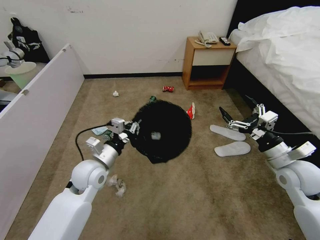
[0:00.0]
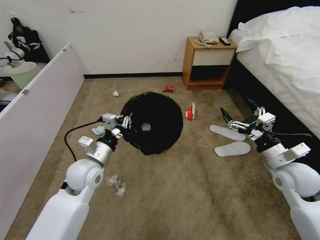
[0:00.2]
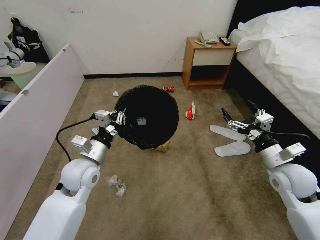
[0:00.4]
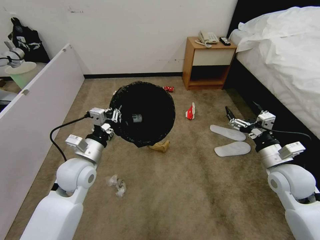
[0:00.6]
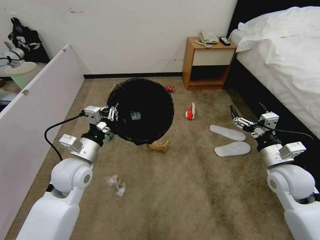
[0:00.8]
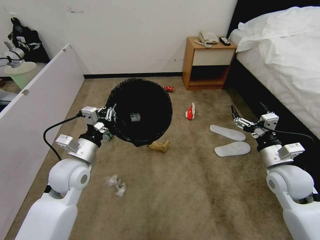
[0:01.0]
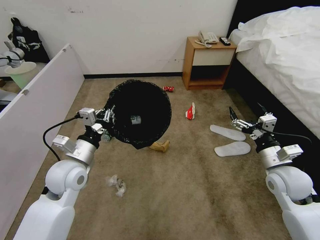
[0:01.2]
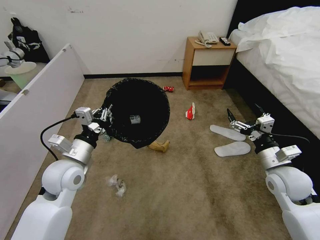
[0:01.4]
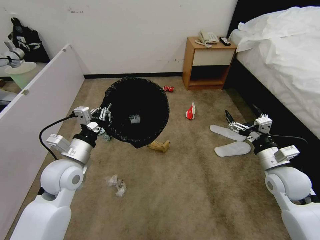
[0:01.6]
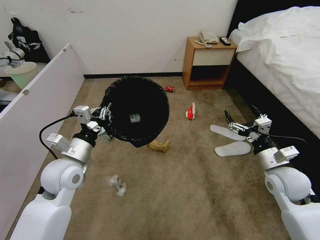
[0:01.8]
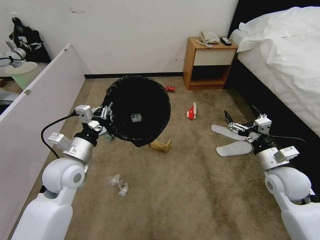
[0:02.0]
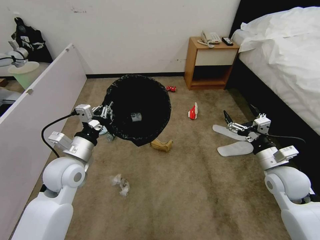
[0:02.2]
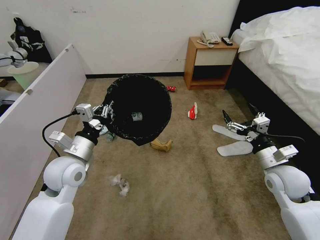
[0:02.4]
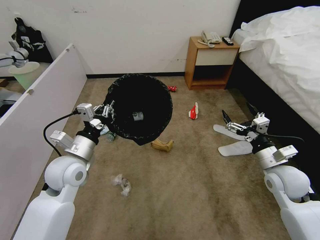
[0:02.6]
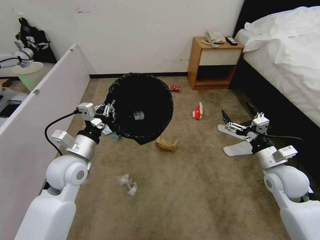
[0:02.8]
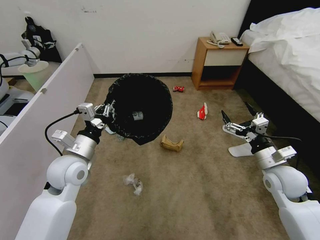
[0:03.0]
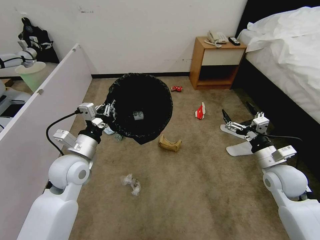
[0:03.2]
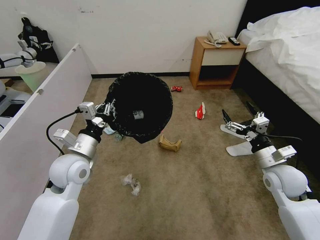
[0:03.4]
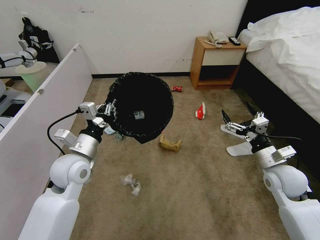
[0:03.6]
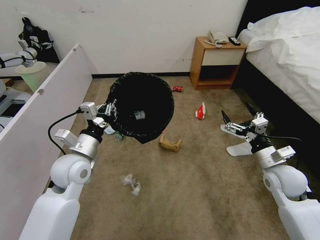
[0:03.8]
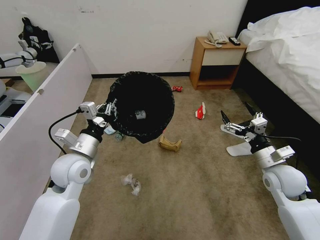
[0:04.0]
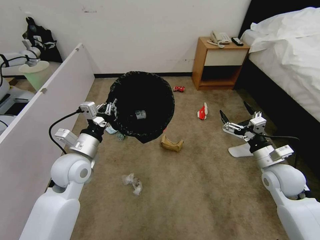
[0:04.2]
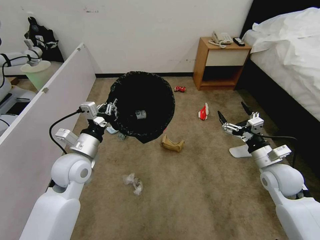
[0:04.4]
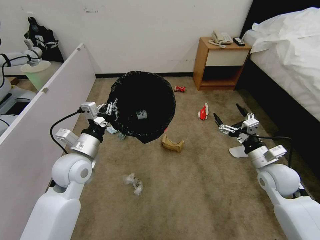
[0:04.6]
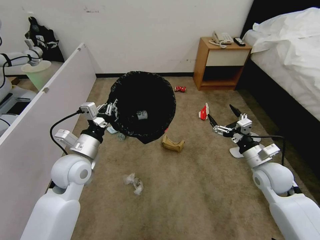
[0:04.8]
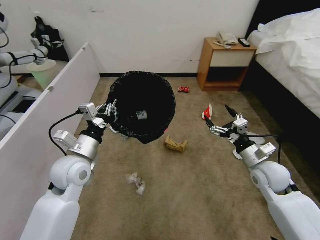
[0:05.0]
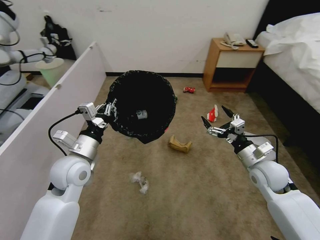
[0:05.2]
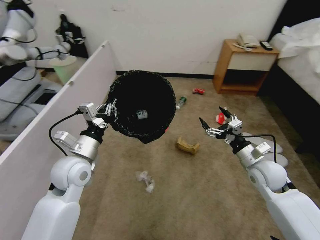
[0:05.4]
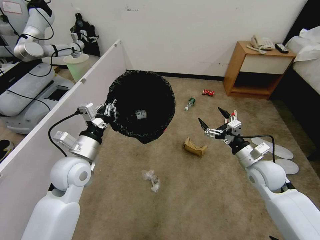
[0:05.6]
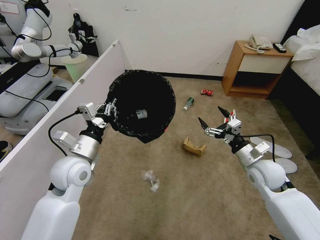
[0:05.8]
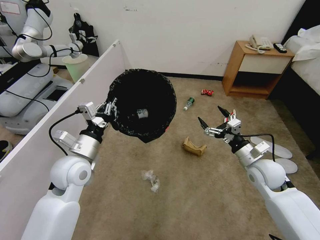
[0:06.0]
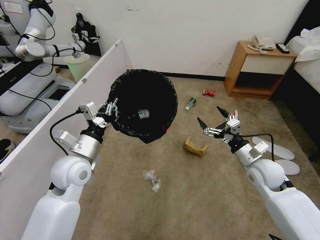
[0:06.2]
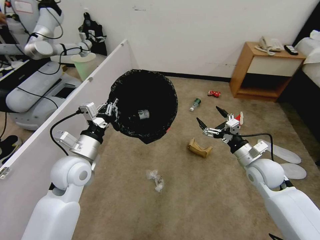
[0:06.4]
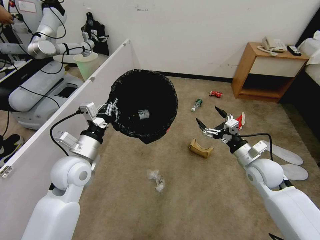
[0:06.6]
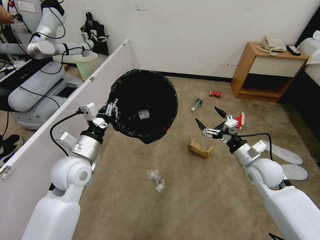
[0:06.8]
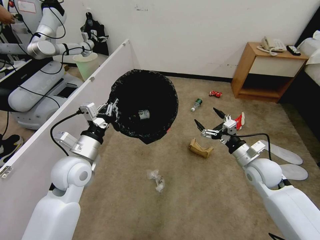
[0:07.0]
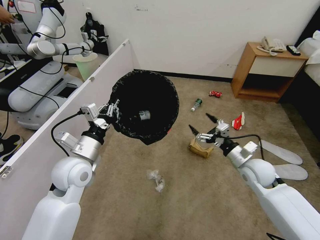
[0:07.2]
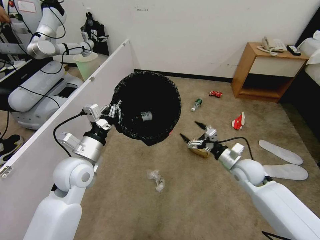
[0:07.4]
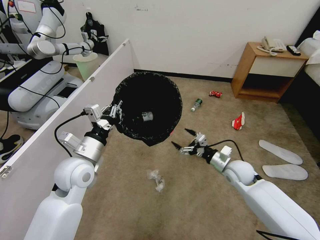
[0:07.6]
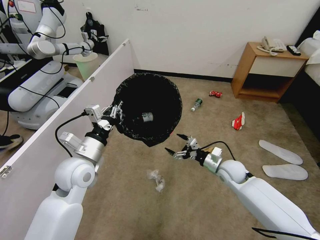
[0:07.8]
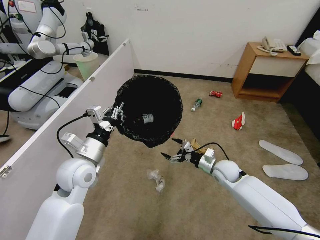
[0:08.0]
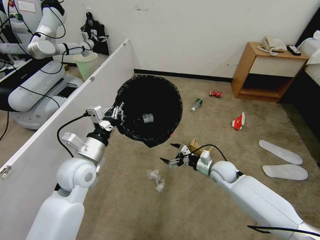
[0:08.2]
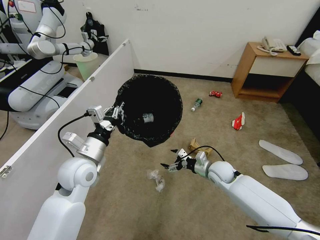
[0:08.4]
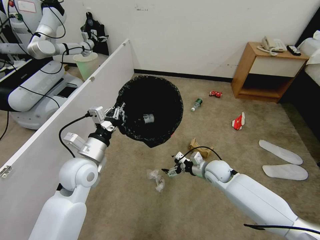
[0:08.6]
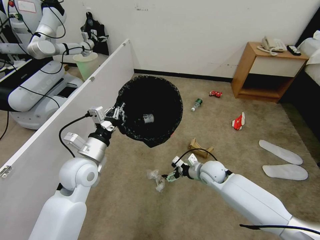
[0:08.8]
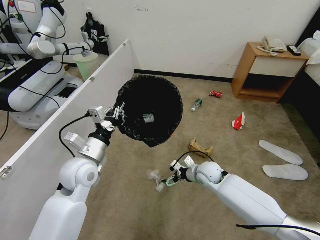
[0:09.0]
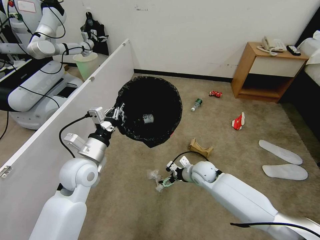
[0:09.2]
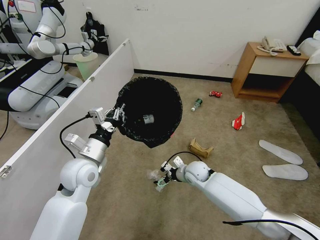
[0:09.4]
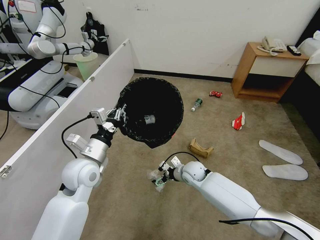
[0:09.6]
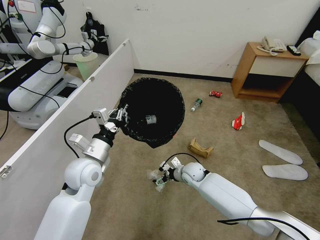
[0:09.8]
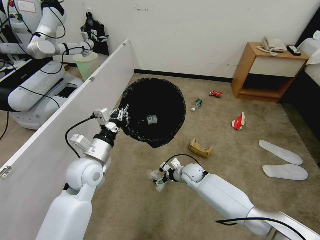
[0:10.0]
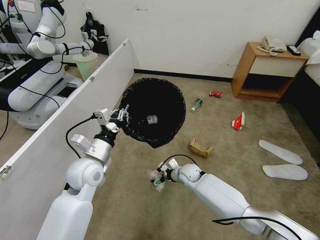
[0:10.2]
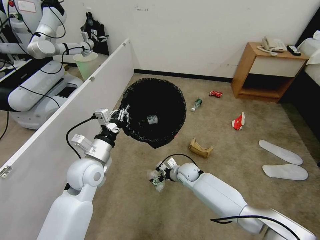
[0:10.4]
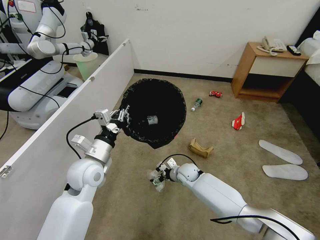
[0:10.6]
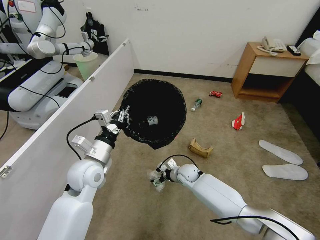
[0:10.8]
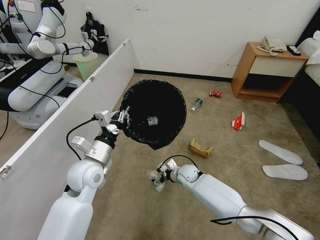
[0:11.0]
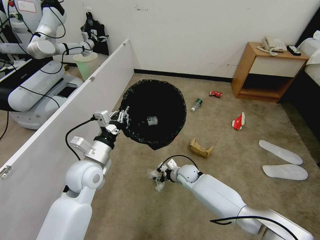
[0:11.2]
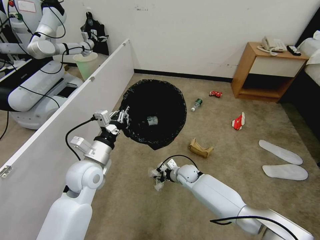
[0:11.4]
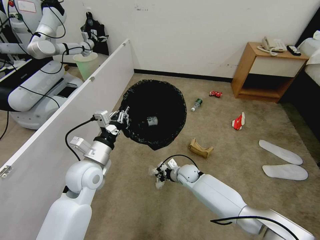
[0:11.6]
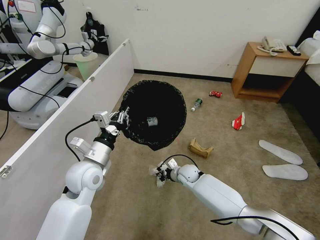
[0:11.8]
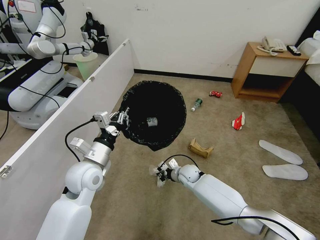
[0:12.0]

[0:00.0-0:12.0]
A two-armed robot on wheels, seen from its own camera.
Task of the whole recording: Pick up the trash bin, then pick up the garbage from the floor and place it into the trash bin.
0:00.0 to 0:01.6: The left gripper changes place by about 5 cm.
0:03.0 to 0:04.4: Both grippers stay about where they are.
0:06.0 to 0:07.6: The right gripper travels downward by about 5 cm.
0:07.6 to 0:09.0: The right gripper is displaced to the left by roughly 10 cm.
0:09.0 to 0:10.4: The right gripper travels to the left and downward by about 10 cm.
0:10.4 to 0:12.0: The right gripper closes its fingers.

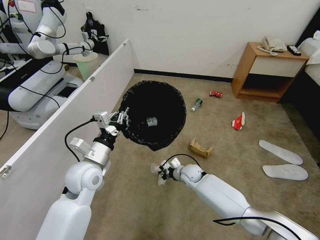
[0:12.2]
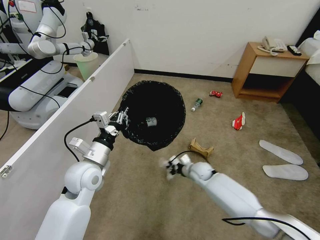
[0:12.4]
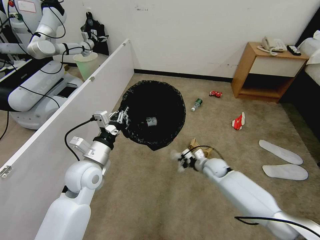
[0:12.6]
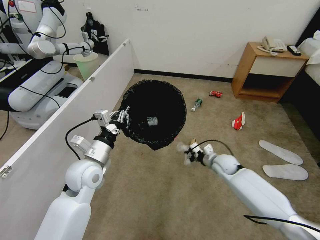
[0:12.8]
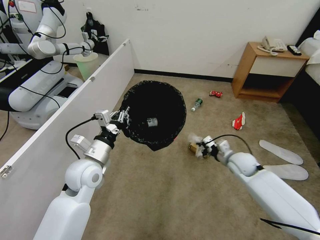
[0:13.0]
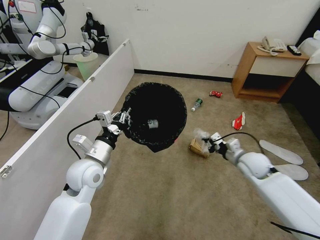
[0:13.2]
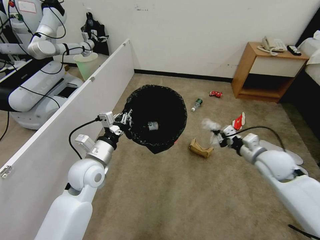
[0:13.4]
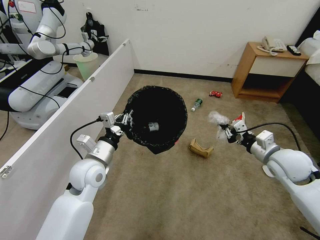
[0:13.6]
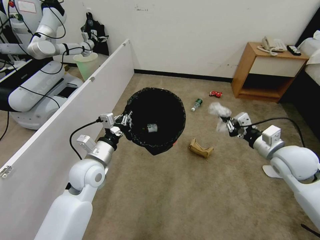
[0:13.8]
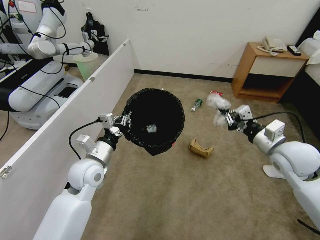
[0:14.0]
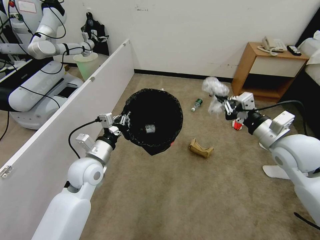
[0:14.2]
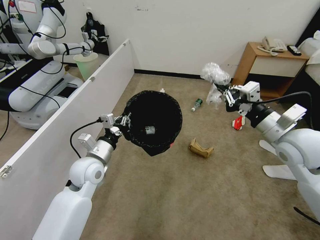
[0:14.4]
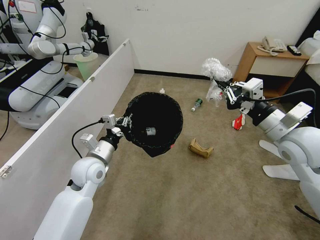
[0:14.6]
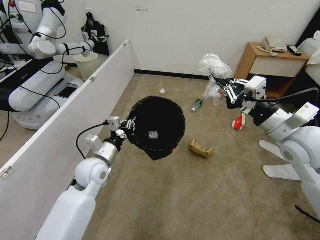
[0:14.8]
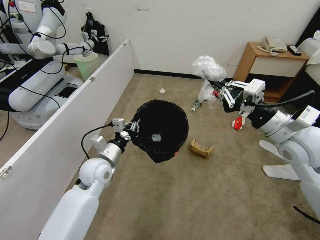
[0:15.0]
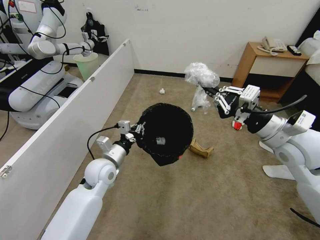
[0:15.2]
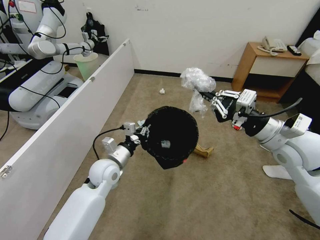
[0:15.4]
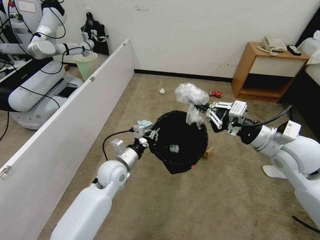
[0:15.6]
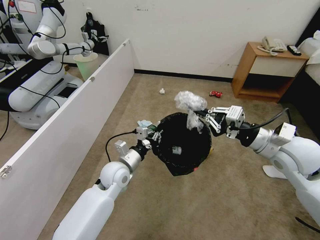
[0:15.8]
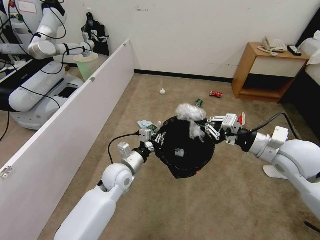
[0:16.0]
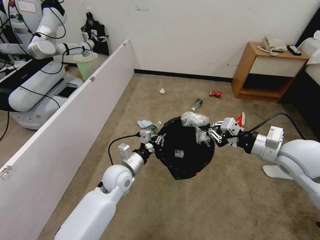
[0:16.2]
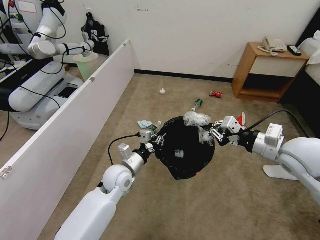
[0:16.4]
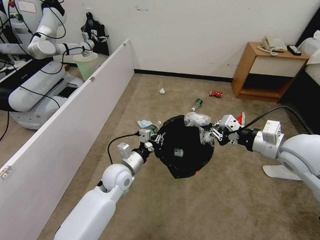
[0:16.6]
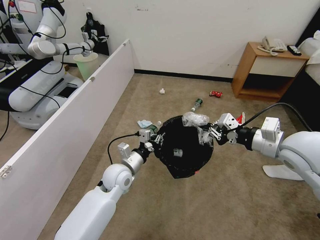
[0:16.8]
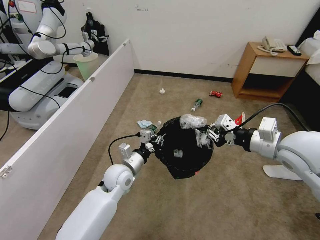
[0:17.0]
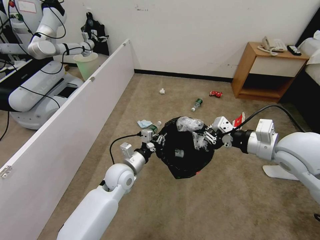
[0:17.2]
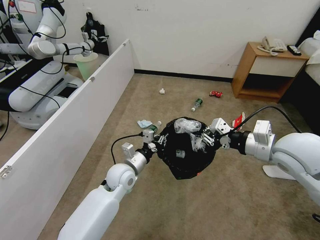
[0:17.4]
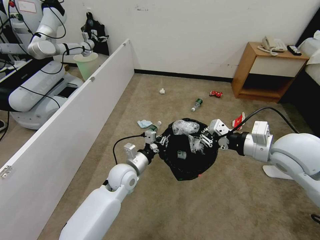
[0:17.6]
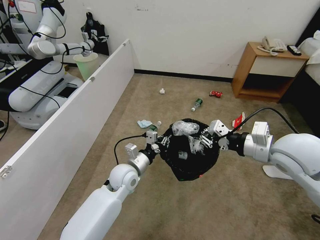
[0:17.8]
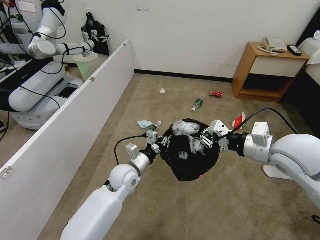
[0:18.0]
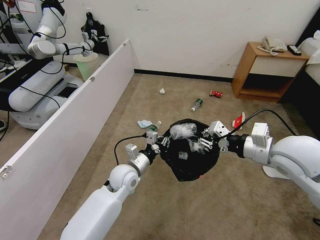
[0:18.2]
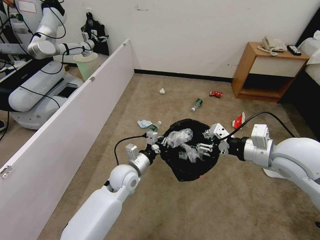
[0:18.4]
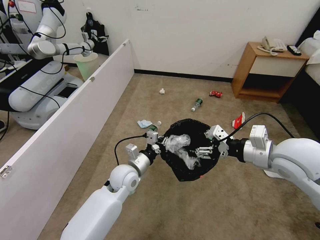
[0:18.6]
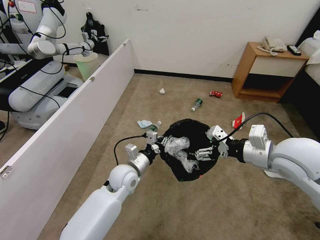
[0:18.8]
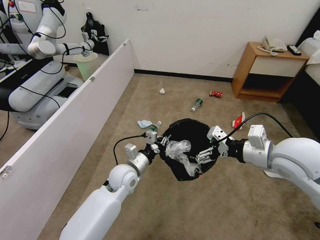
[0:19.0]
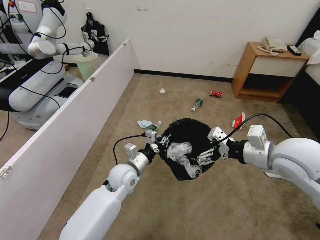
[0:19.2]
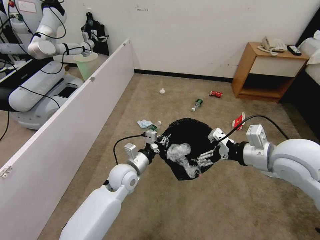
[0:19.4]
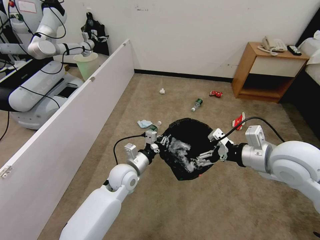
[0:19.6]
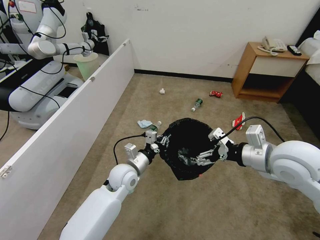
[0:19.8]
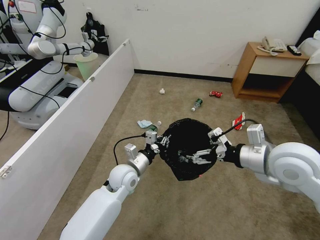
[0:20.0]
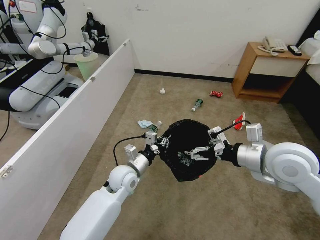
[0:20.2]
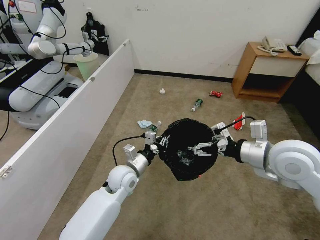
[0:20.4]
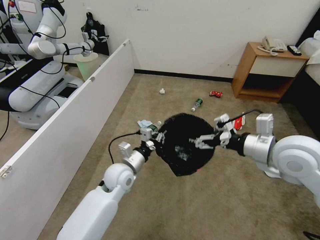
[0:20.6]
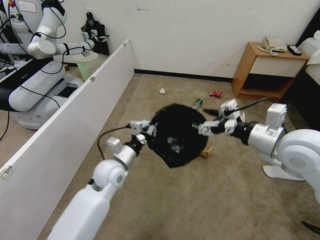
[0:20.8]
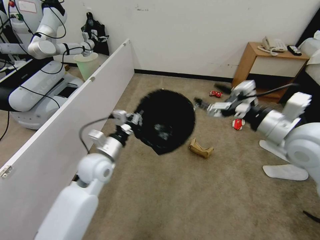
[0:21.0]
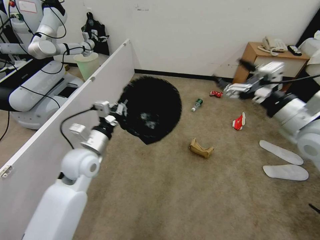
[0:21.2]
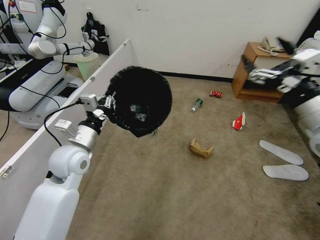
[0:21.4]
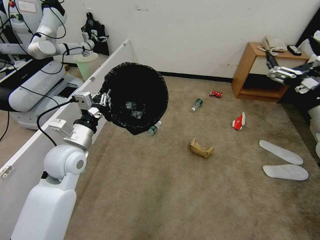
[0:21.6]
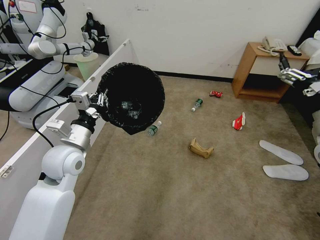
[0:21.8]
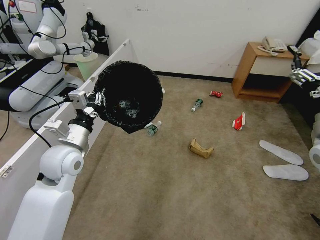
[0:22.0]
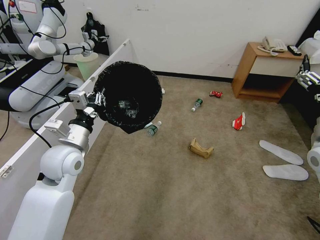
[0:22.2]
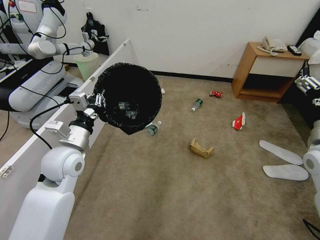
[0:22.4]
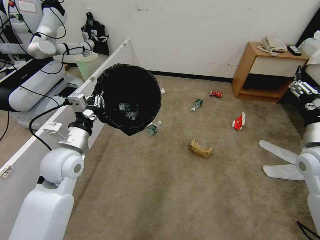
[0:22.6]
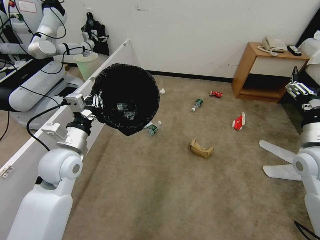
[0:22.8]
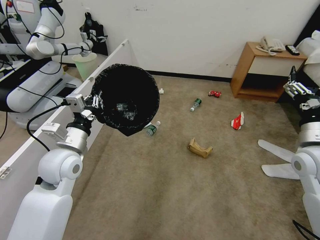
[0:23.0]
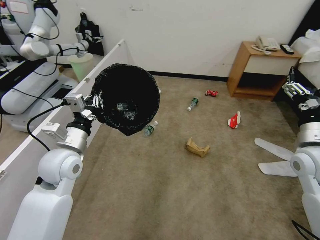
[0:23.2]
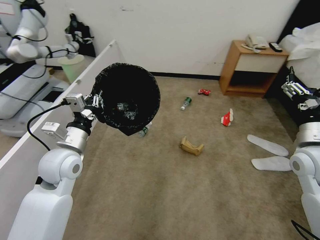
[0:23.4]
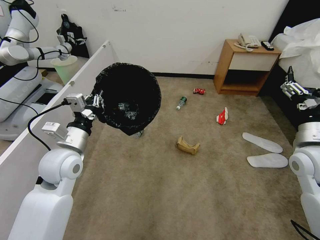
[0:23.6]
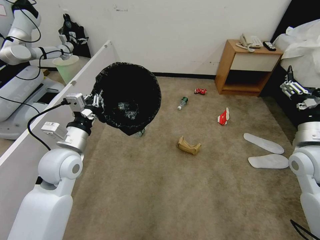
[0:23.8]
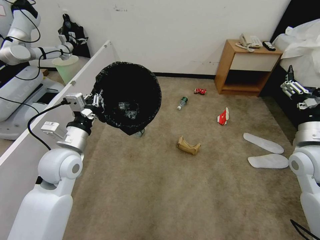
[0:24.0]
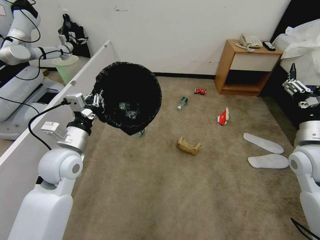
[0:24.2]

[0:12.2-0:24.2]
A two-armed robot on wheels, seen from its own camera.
Task of the whole recording: Pick up the trash bin, then pick up the garbage from the floor and place it into the trash bin.
0:12.2 to 0:13.8: The right gripper shifts about 35 cm upward and to the right.
0:13.8 to 0:15.2: The left gripper moves roughly 5 cm. Meanwhile the right gripper heads upward and to the left, covering approximately 10 cm.
0:15.2 to 0:16.6: The left gripper ends up some 5 cm from where it was.
0:16.6 to 0:18.2: The grippers make only small movements.
0:18.2 to 0:19.8: The right gripper opens up.
0:19.8 to 0:21.2: The right gripper goes some 5 cm upward; the left gripper goes roughly 15 cm to the left and upward.
0:21.2 to 0:22.6: The right gripper travels downward and to the right by about 10 cm.
